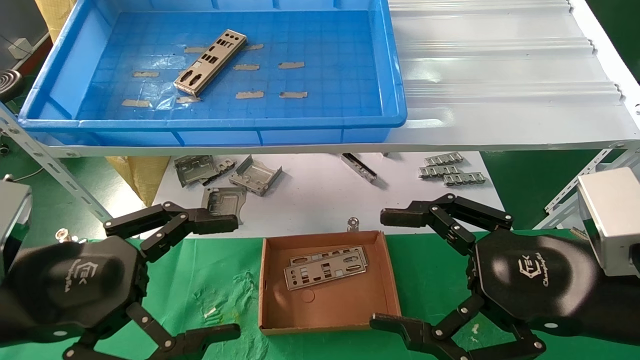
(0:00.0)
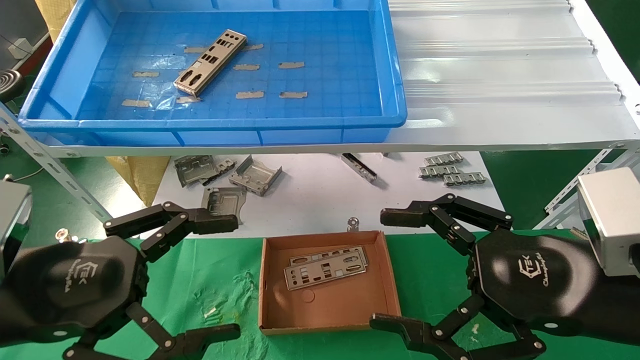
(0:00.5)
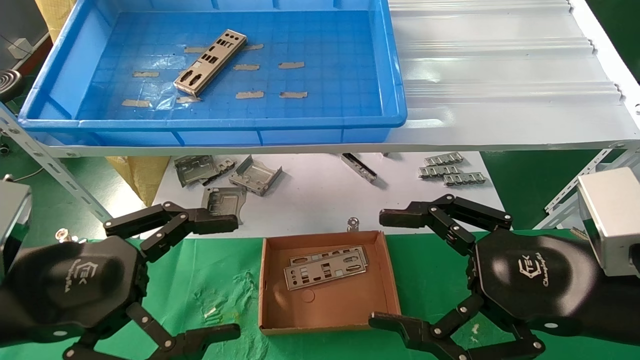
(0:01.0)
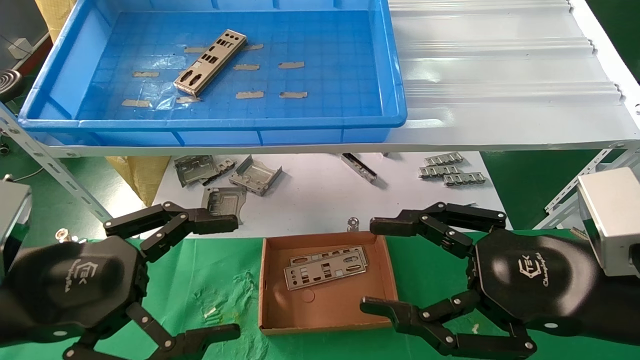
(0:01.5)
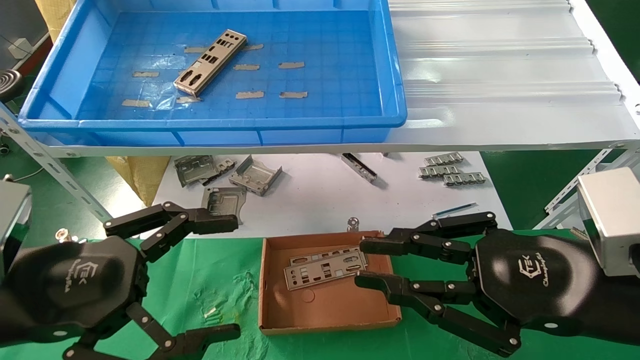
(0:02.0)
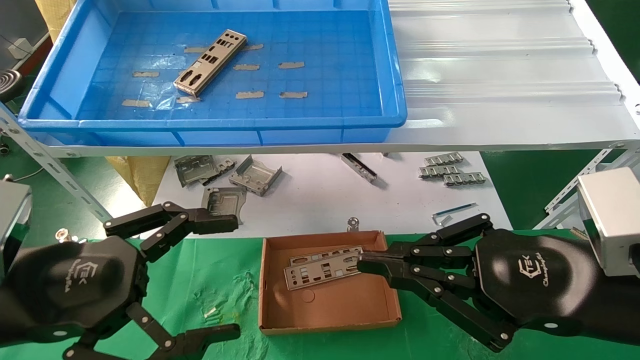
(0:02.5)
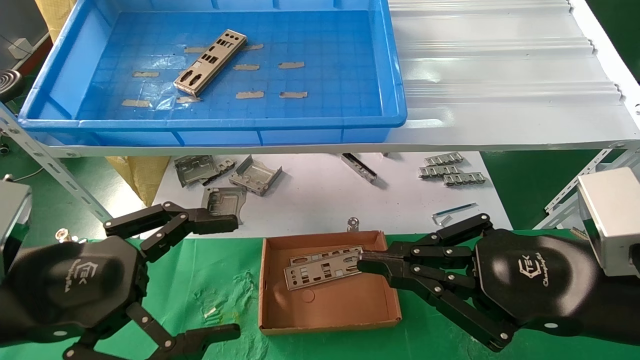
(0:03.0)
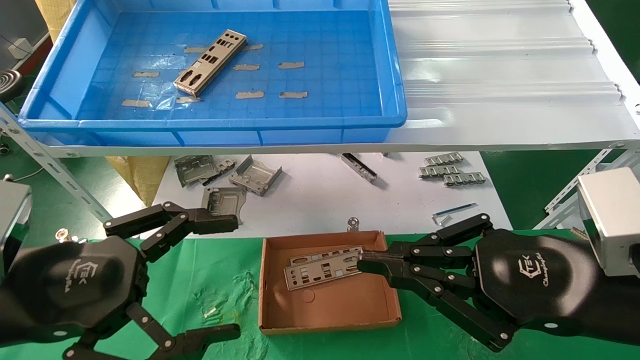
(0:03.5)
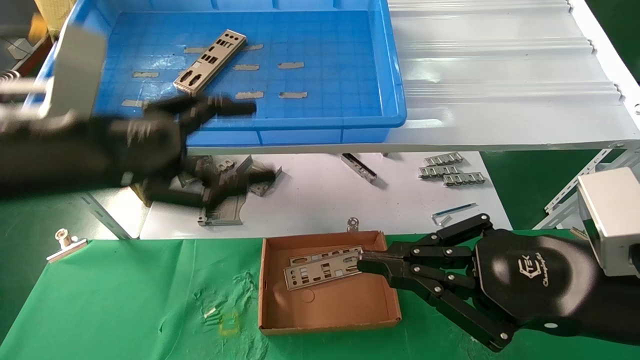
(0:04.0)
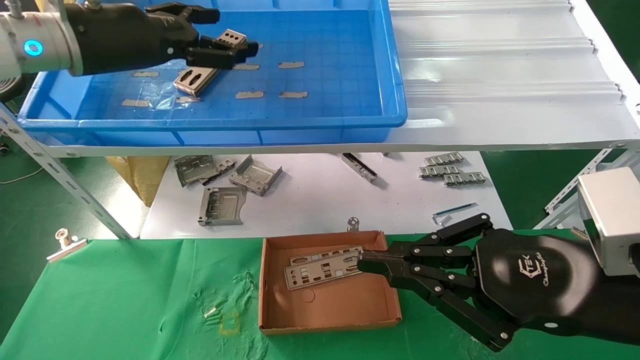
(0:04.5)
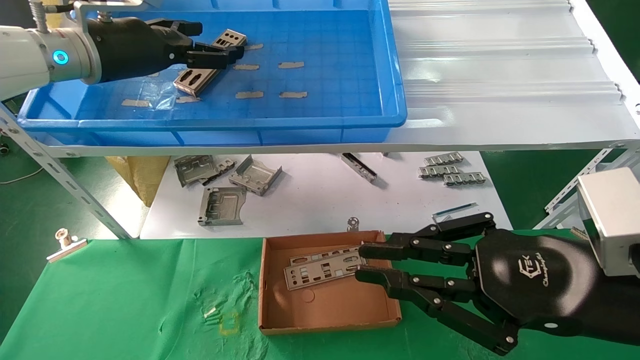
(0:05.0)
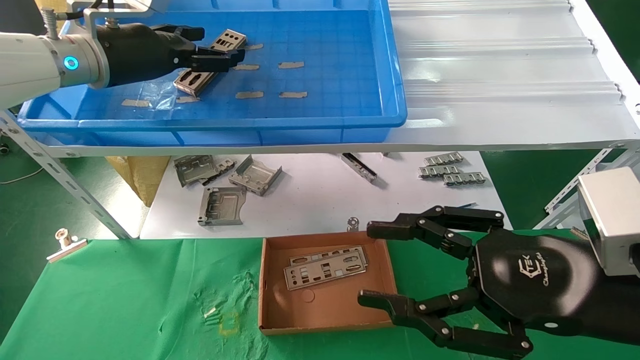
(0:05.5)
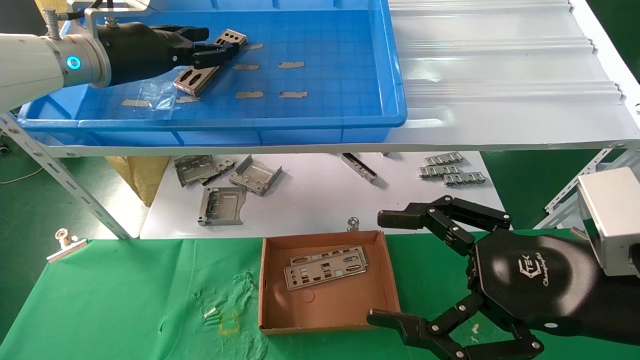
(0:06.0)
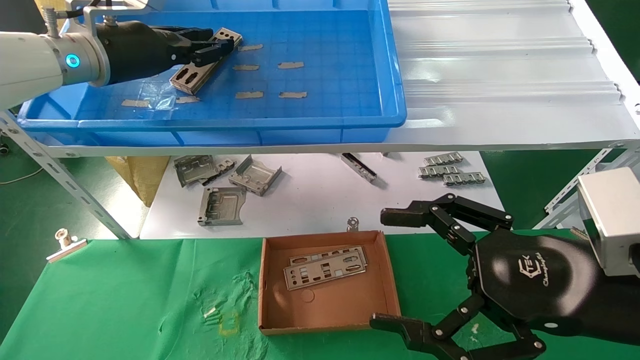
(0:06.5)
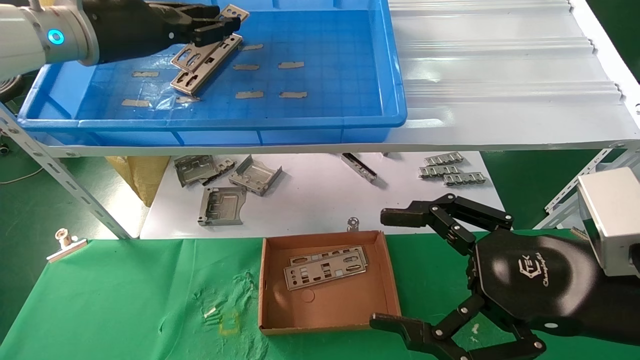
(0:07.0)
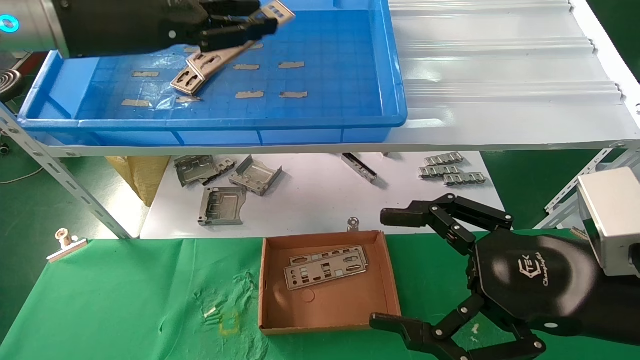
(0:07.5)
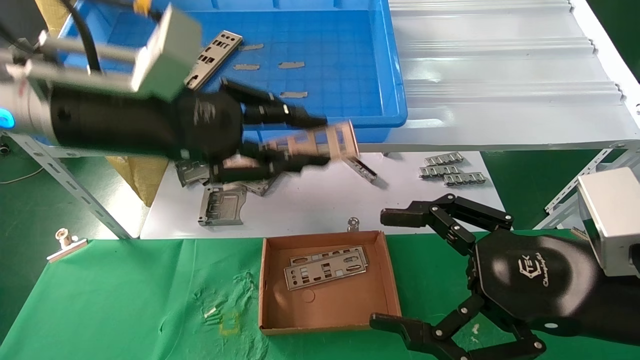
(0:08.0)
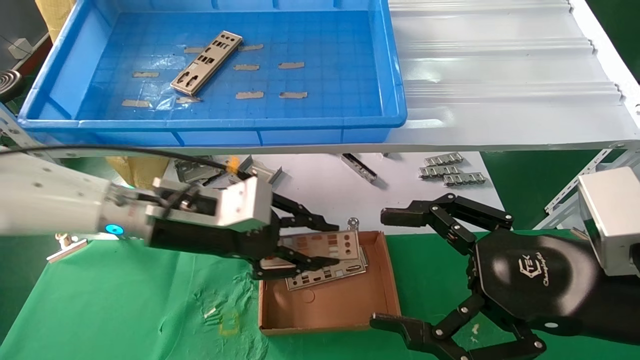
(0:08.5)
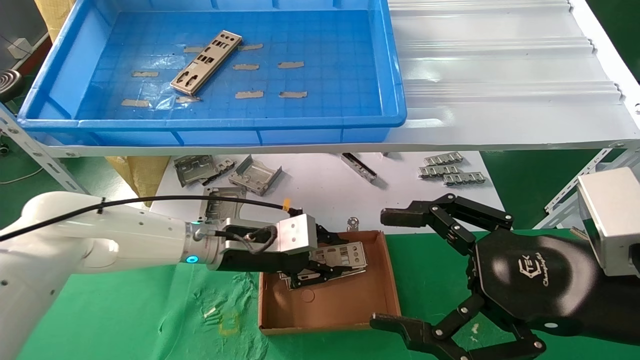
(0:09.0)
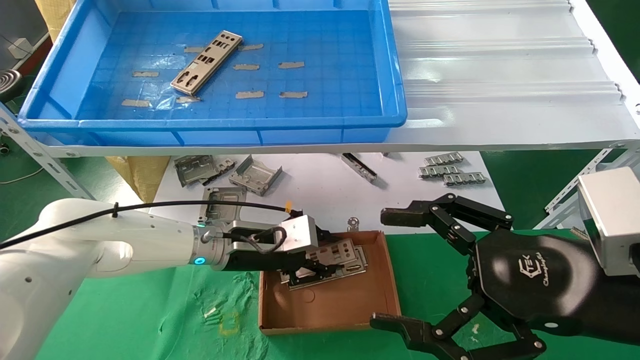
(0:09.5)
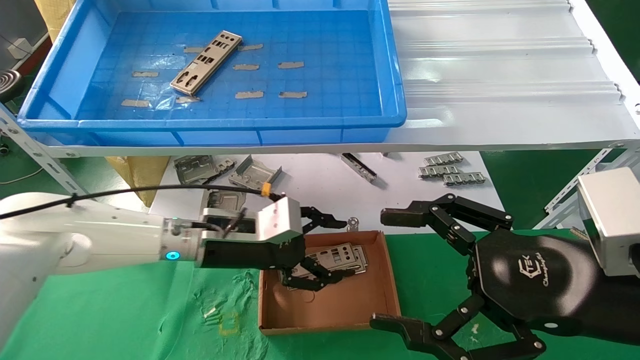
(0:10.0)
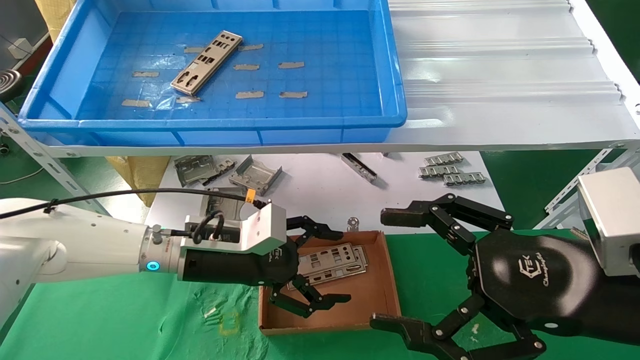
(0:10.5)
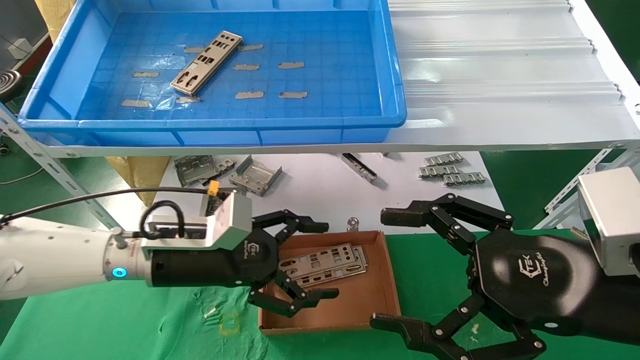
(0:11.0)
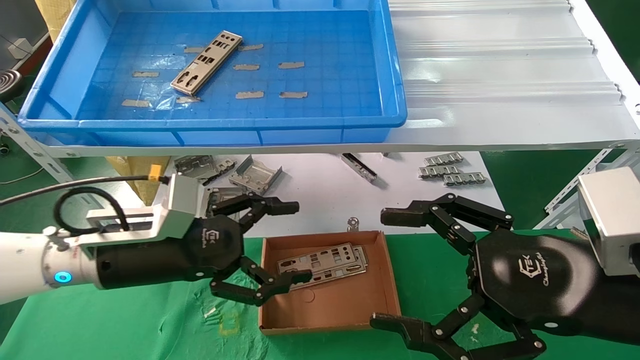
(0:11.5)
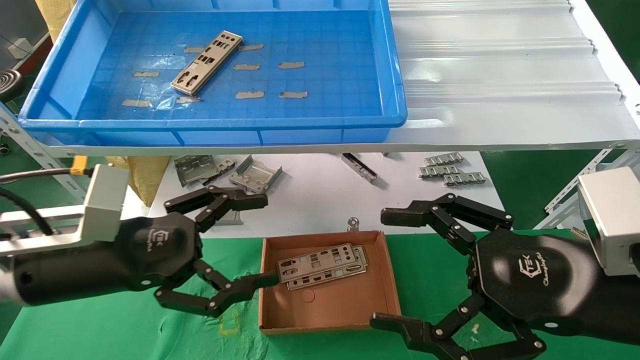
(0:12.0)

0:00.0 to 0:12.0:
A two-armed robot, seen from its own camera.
Task of the whole recording: pick up the parts on the tray and put them in the cardboard box.
Step, 0:05.0 to 0:11.0: Pick up the IO bracket from the container box.
0:00.0 to 0:02.0: The right gripper closes its fingers.
0:02.0 to 0:04.0: The left gripper heads upward and forward, covering about 15 cm; the right gripper closes its fingers.
0:04.0 to 0:06.0: The left gripper travels forward and upward by about 20 cm, and closes. Meanwhile the right gripper opens up.
0:06.0 to 0:08.0: The left gripper is displaced backward and to the right by some 15 cm, and closes its fingers.
0:08.0 to 0:10.0: The left gripper heads downward and forward, covering roughly 20 cm, and opens.
0:10.0 to 0:12.0: The left gripper travels backward and to the left by roughly 15 cm, and opens.

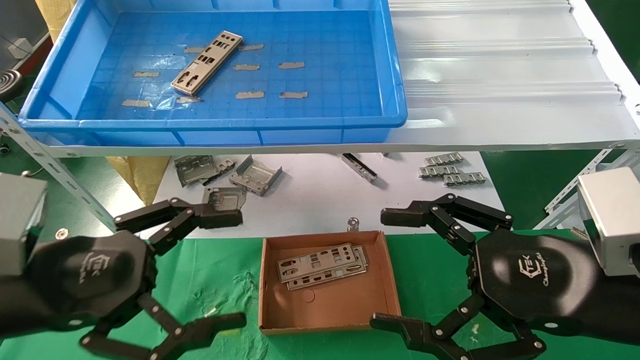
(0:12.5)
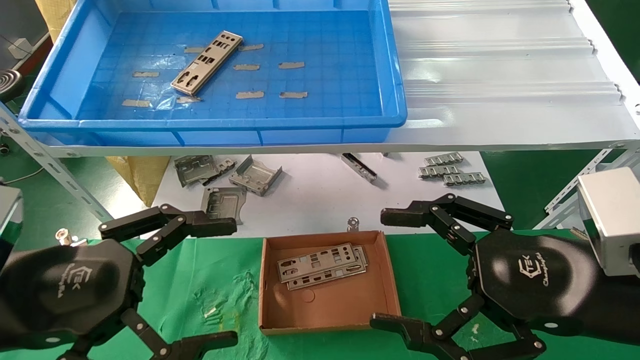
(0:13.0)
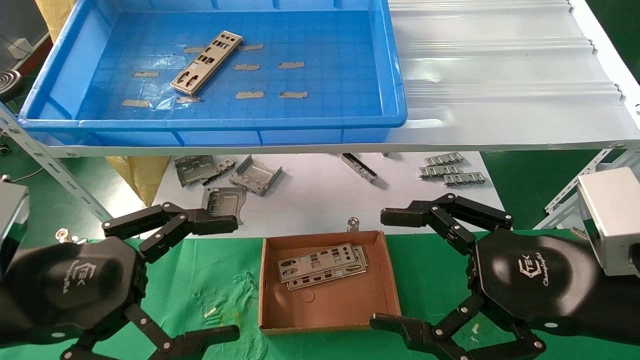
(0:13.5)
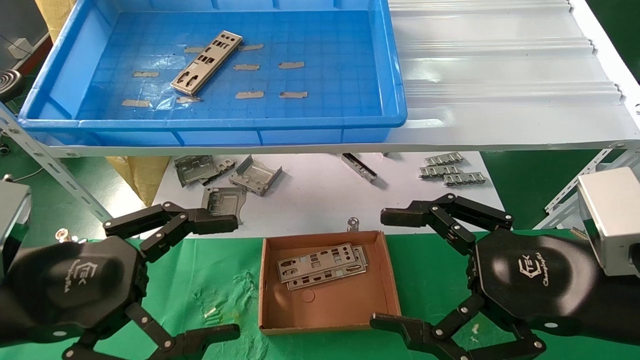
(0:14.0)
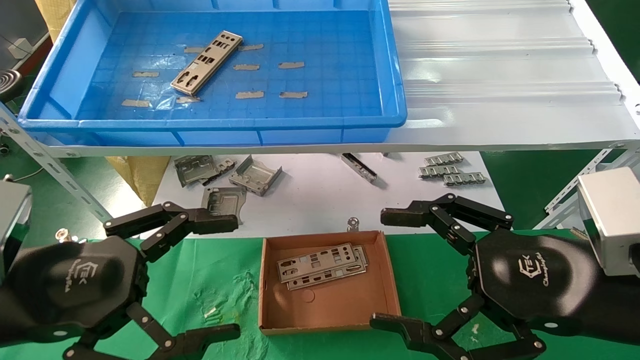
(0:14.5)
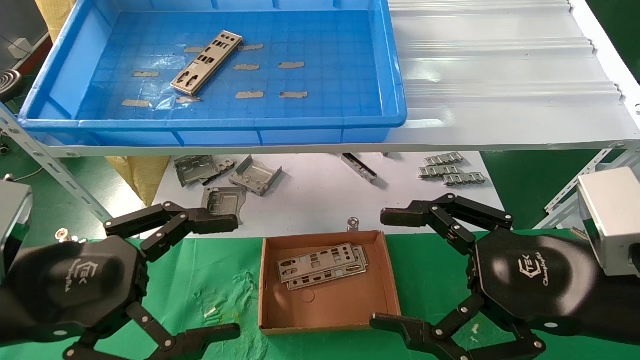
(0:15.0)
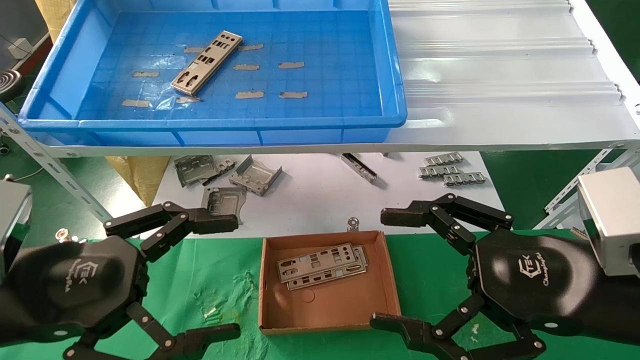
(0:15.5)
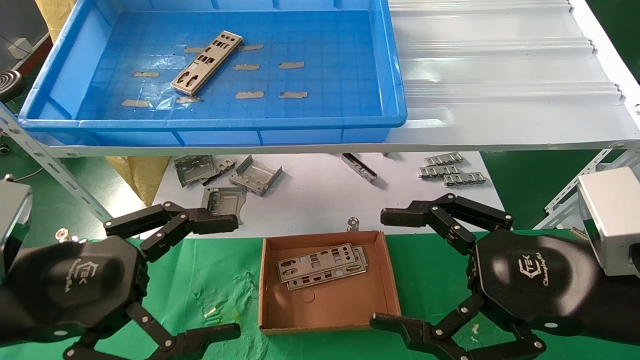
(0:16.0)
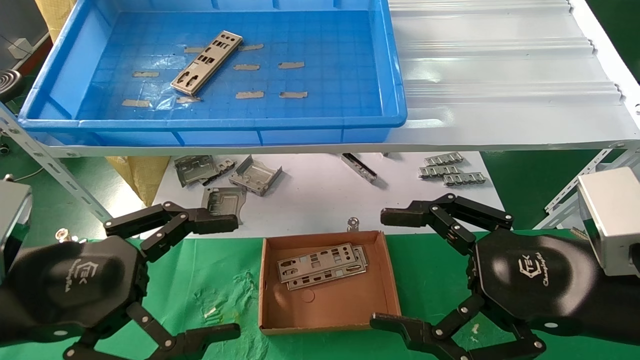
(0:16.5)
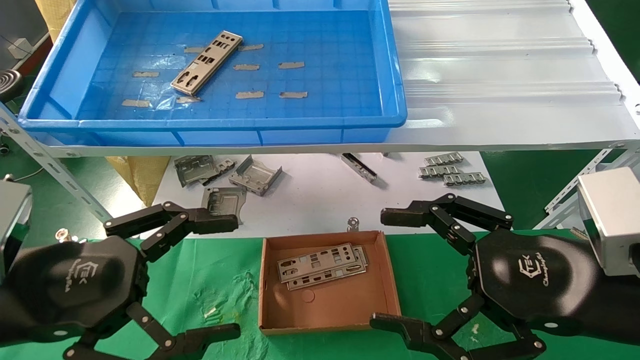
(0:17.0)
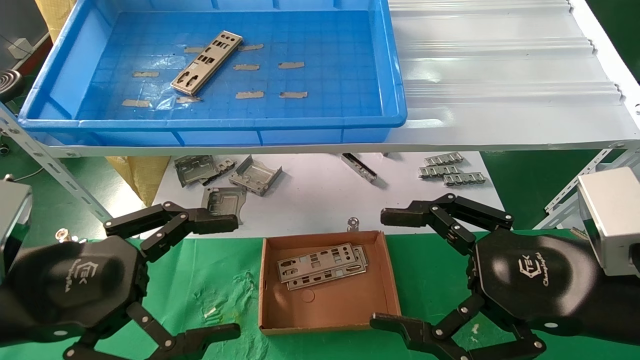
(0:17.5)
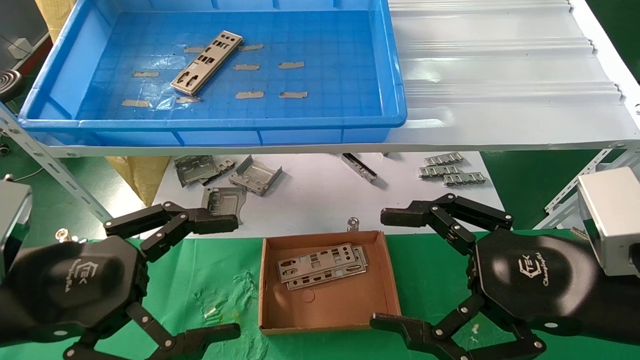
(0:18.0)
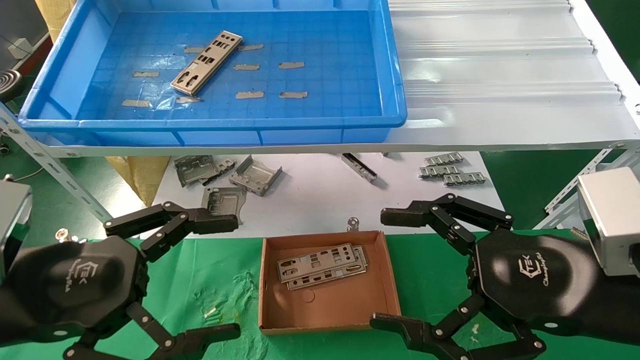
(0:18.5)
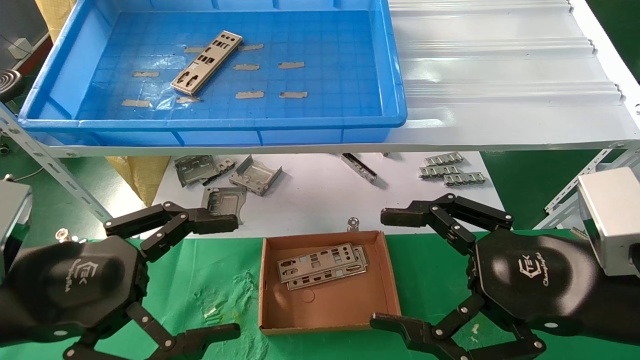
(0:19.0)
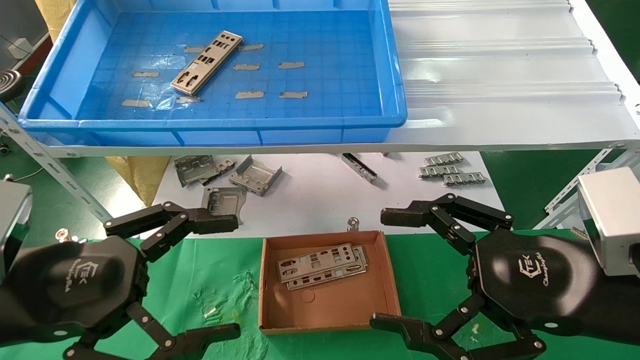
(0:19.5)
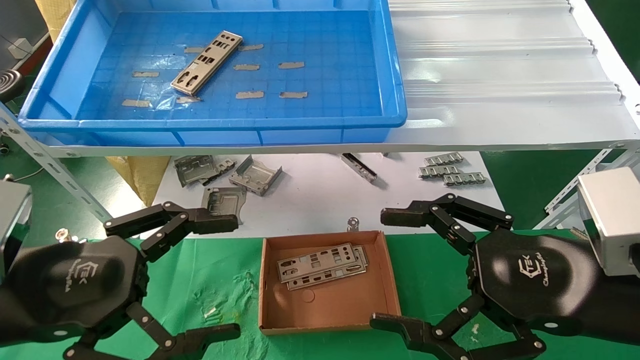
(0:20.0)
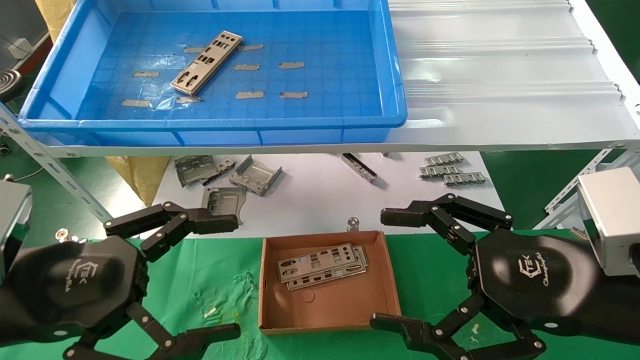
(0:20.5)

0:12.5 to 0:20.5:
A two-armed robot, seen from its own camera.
Task of the whole recording: pick up the parts on the tray and put them in the cardboard box.
0:12.5 to 0:14.5: The grippers move only a little.
0:14.5 to 0:20.5: Both grippers stay put.
